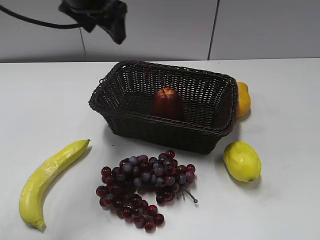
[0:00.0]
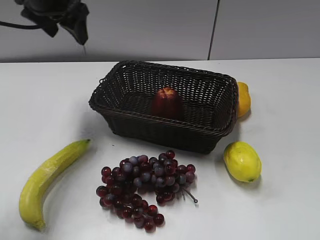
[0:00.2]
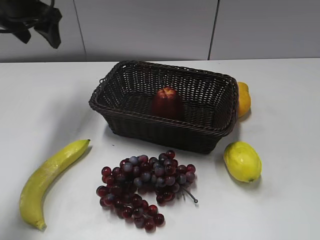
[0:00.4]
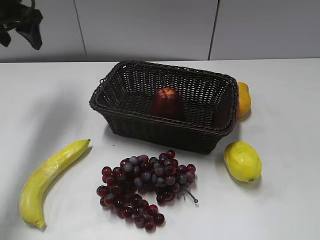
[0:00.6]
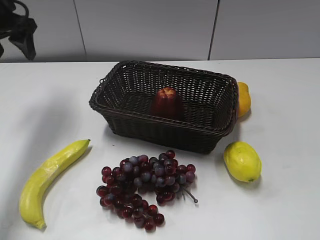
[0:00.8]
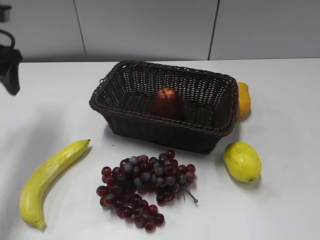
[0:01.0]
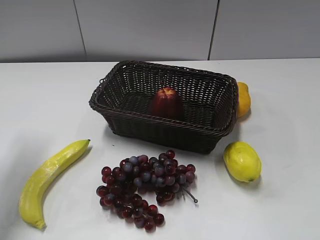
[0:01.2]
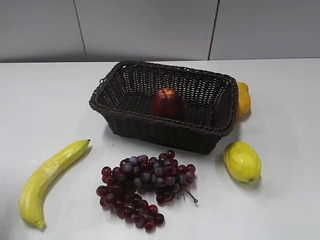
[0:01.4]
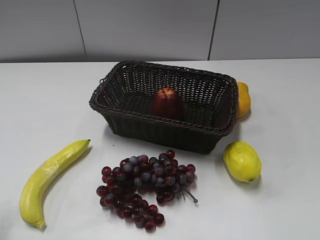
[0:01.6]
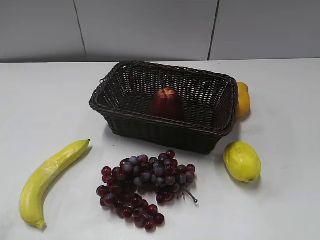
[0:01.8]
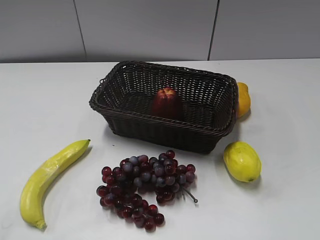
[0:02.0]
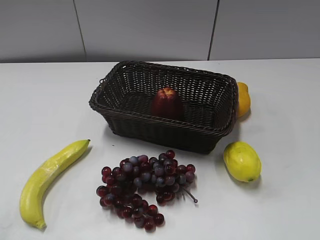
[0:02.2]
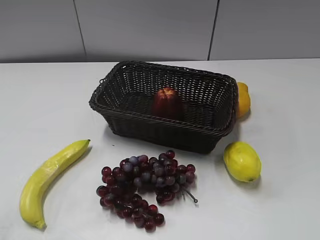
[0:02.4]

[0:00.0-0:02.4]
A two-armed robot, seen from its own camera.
0:00.0 to 0:01.2: The left gripper moves to the left, backward and downward, roughly 25 cm, and closes up.
0:01.2 to 0:02.4: The left gripper travels backward by roughly 25 cm.
